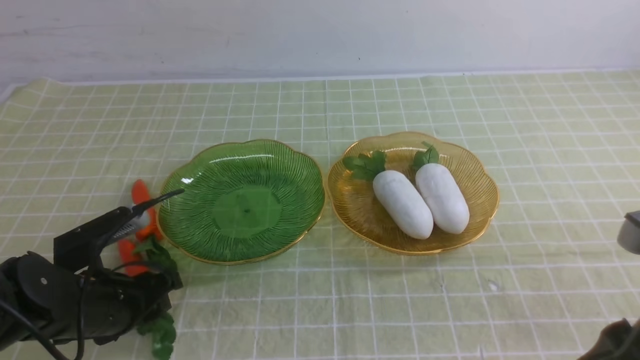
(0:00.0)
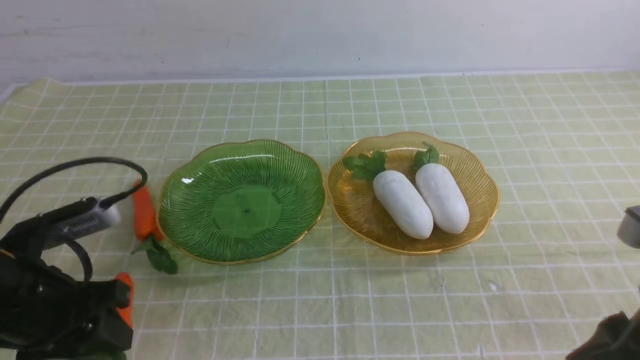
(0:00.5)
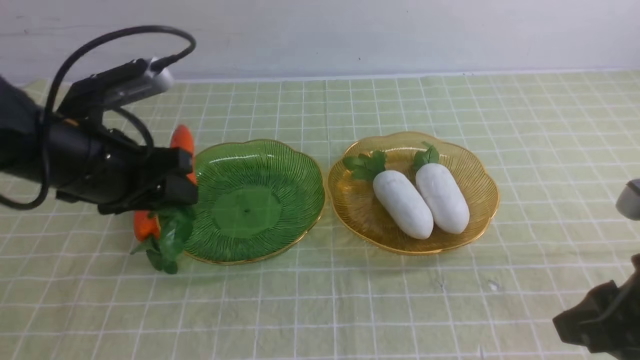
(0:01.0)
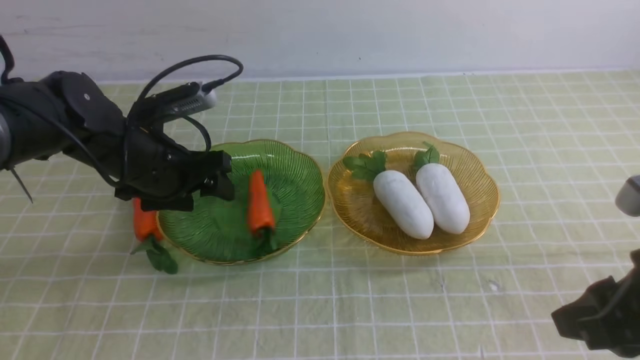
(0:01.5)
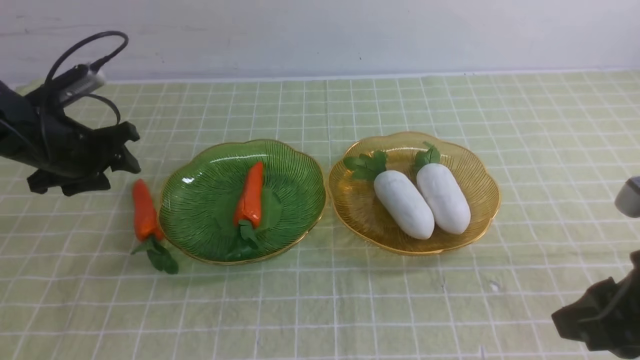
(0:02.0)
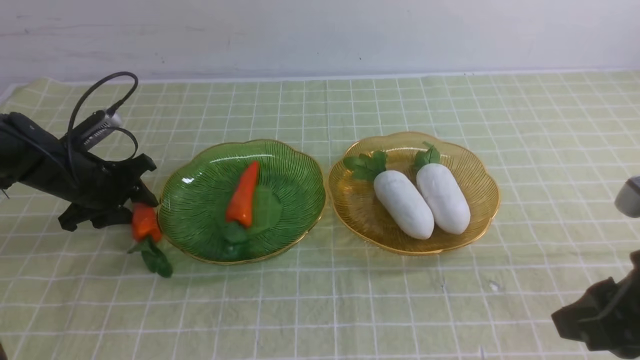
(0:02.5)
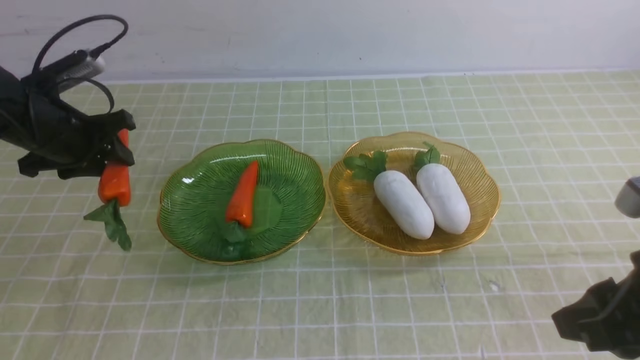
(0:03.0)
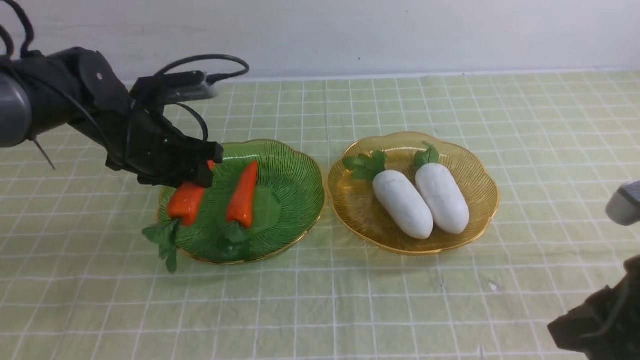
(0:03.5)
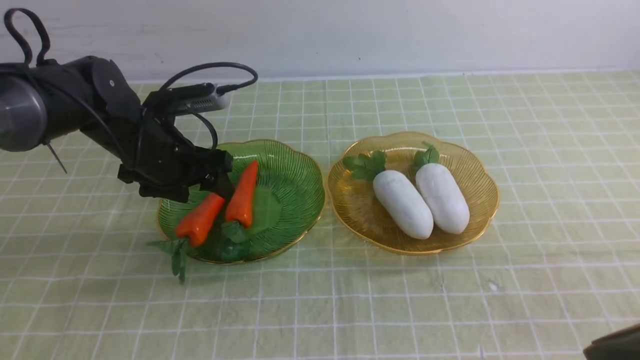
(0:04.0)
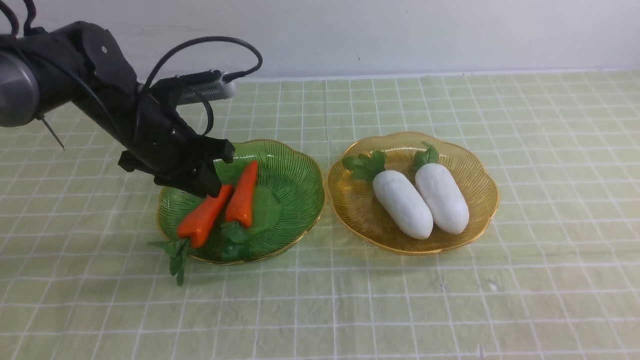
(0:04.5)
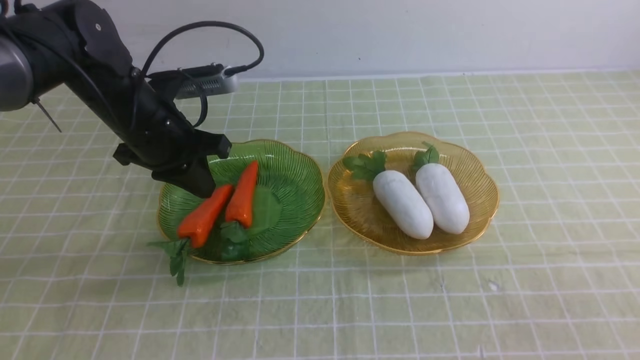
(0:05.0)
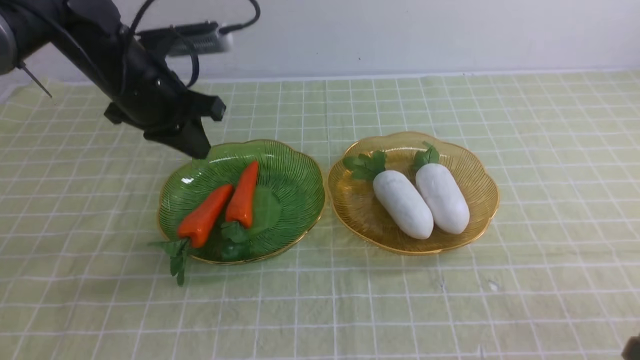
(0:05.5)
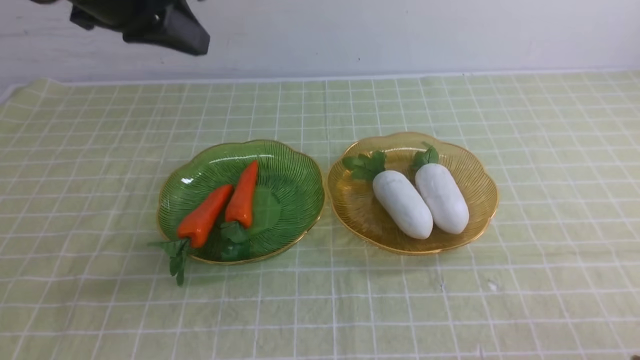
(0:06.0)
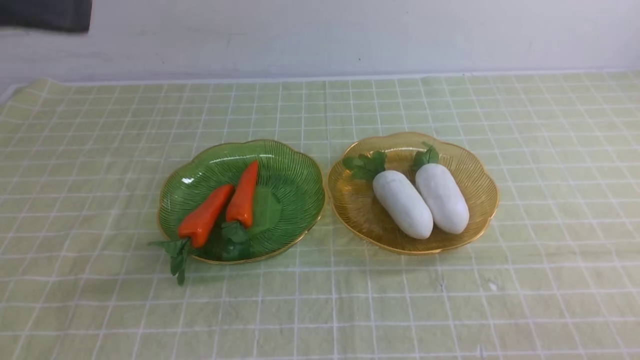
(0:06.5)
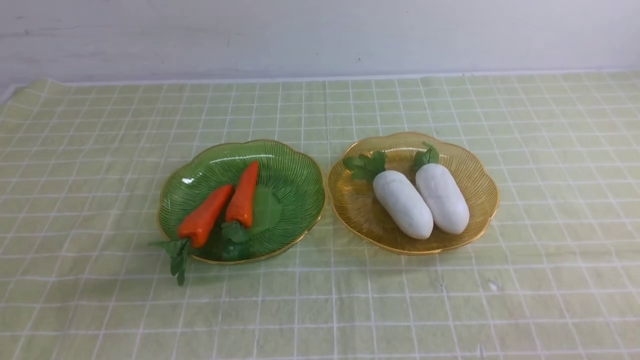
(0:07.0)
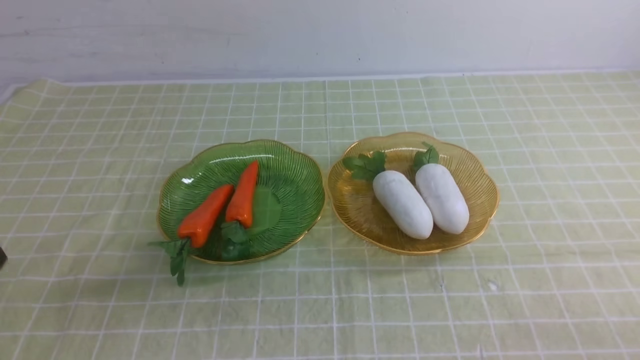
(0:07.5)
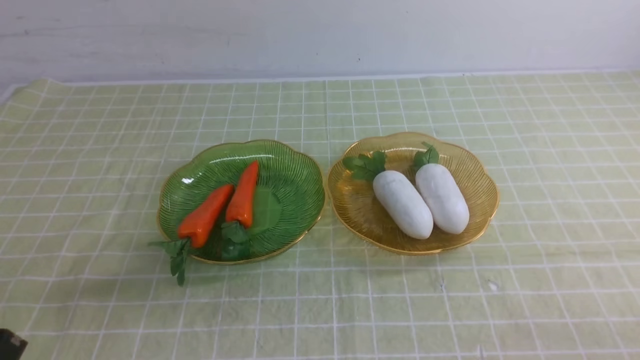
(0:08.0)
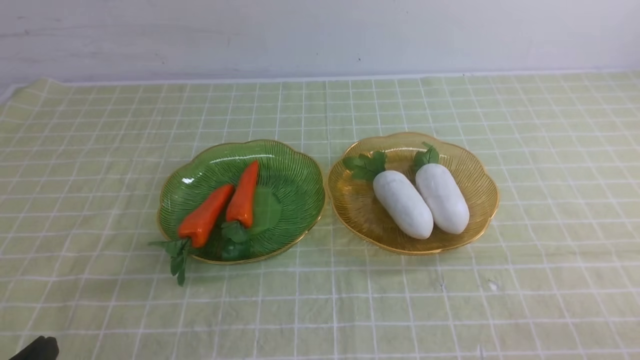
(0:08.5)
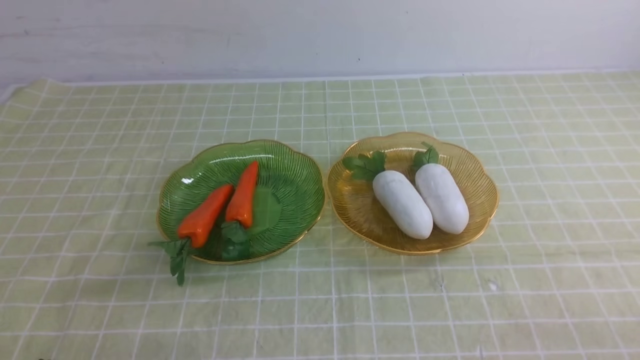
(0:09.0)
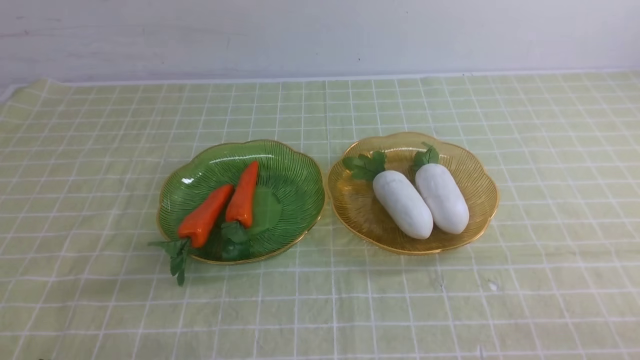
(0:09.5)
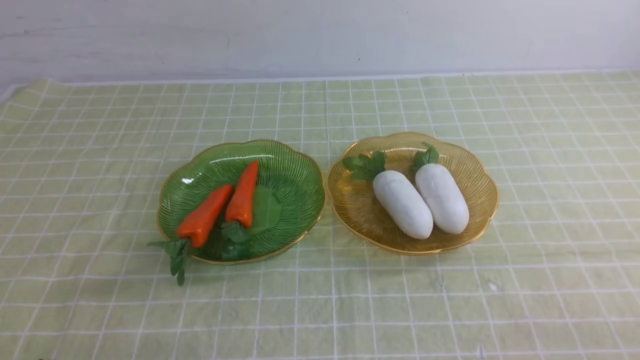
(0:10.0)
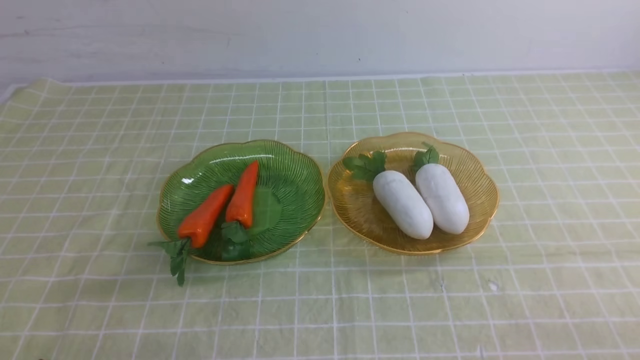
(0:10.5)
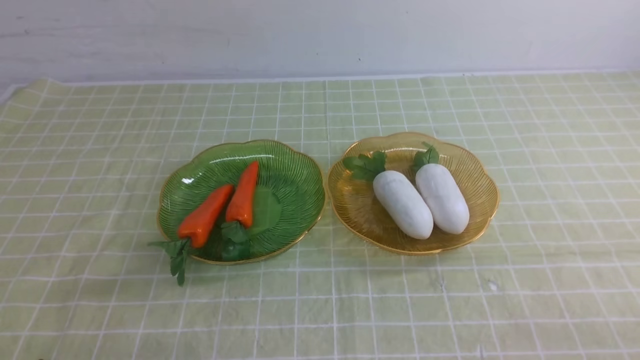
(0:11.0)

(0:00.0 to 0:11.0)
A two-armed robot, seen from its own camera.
Step, 0:00.0 - 0:04.0: use the left arm to grab a carrot and put it into the left plate.
0:00.0 - 0:02.0: The left gripper is displaced forward by about 15 cm.
0:02.0 - 0:03.5: The left gripper goes some 10 cm to the right.
0:03.5 - 0:05.5: The left gripper moves upward, approximately 10 cm, and closes up. The right gripper shifts roughly 15 cm backward and downward.
0:05.5 - 0:07.5: The right gripper ends up about 5 cm from where it was, while the left gripper is displaced backward by approximately 35 cm.
0:09.0 - 0:11.0: Neither gripper changes place.
